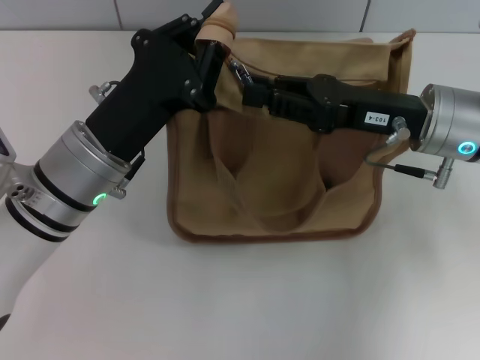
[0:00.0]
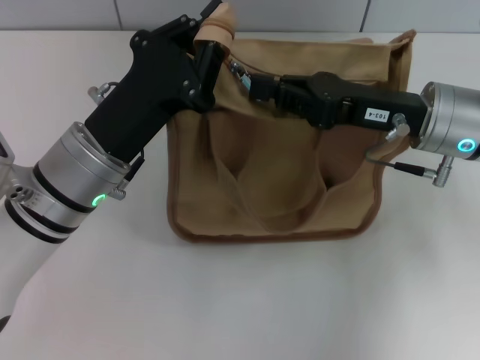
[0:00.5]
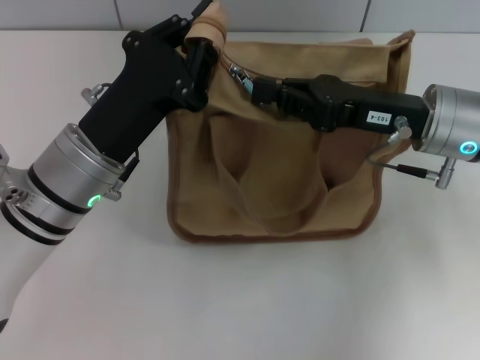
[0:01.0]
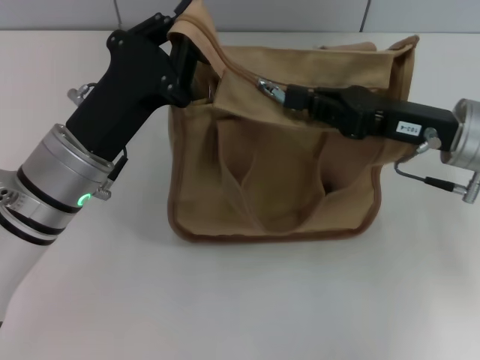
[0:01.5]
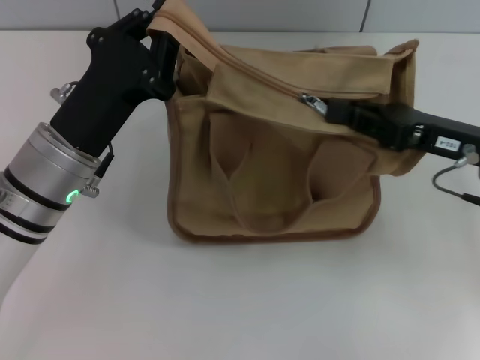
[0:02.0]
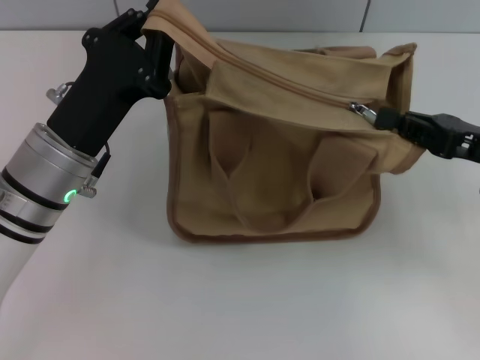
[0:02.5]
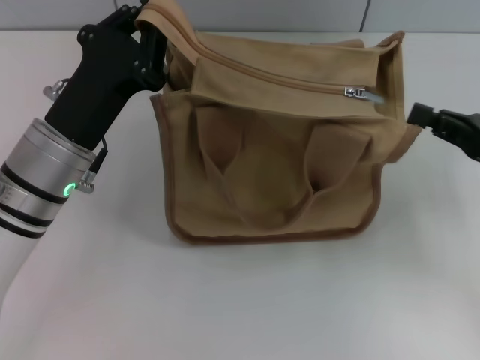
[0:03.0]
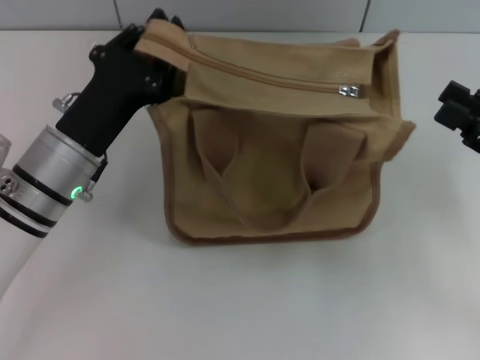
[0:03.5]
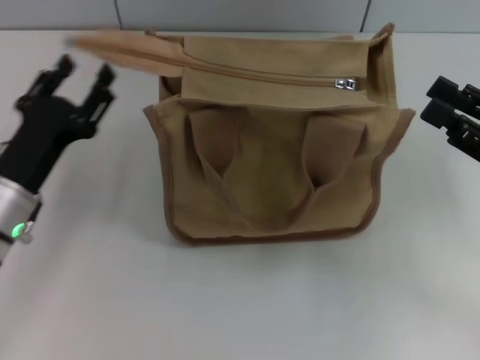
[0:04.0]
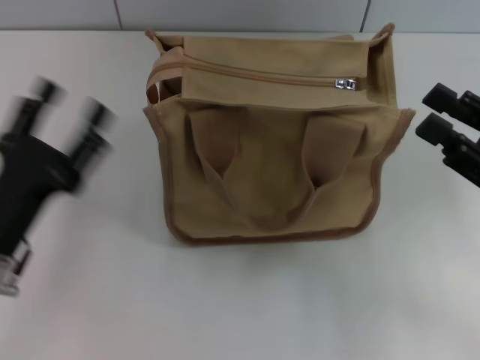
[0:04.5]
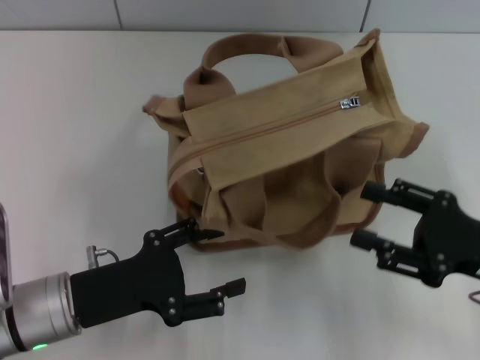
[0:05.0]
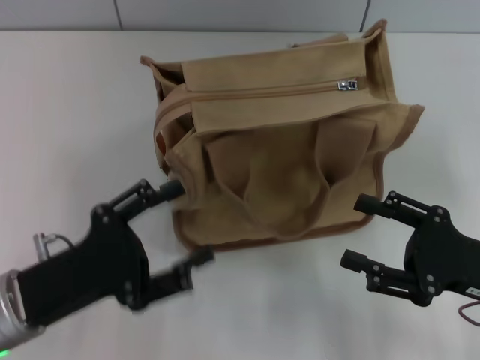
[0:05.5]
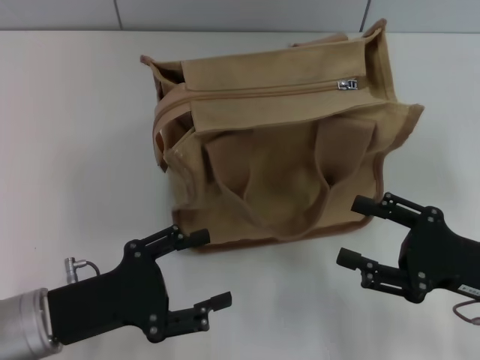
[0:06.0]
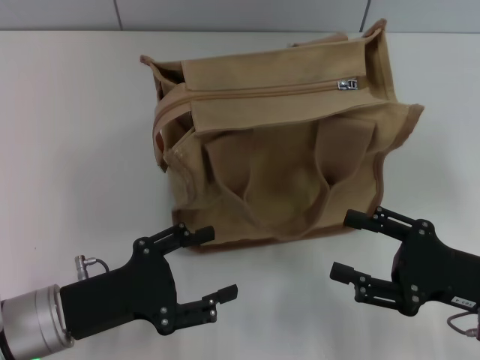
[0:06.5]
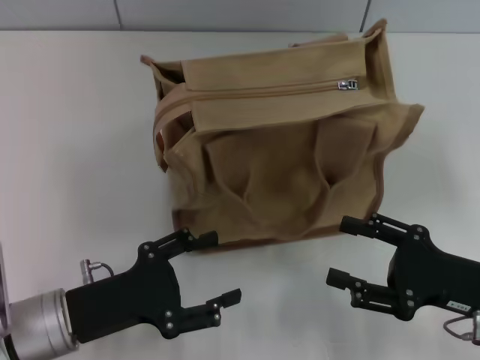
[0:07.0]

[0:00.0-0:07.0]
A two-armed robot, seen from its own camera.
Step, 0:00.0 to 0:02.5: Pull up the zipper with your right hand.
Step, 0:03.0 to 0:04.0: Grab the zipper with your left hand.
0:00.0 to 0:02.0: The right gripper goes some 5 cm to the right.
0:02.0 to 0:03.5: The right gripper heads to the right and backward, covering about 10 cm, and opens its fingers.
0:03.5 to 0:05.0: The right gripper moves approximately 5 cm, and opens its fingers. The left gripper is displaced backward by some 10 cm, and opens its fingers.
